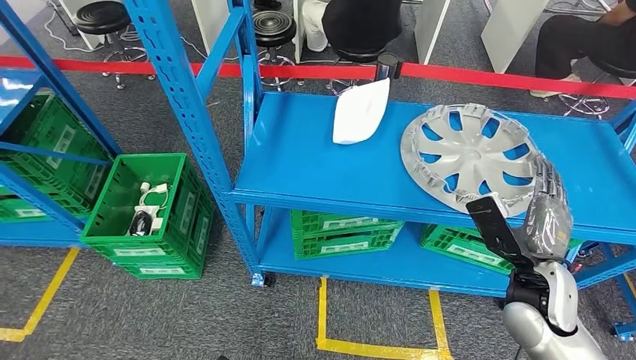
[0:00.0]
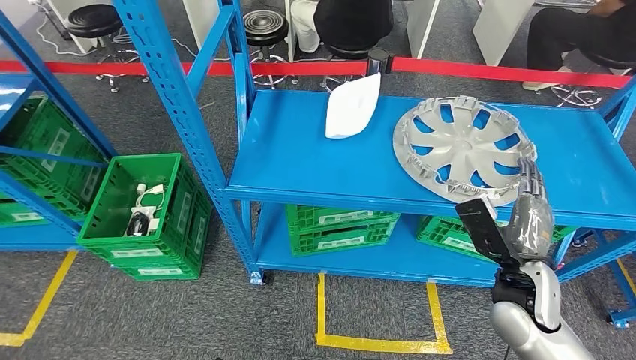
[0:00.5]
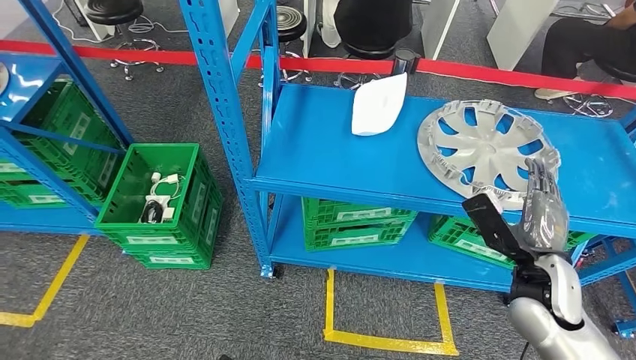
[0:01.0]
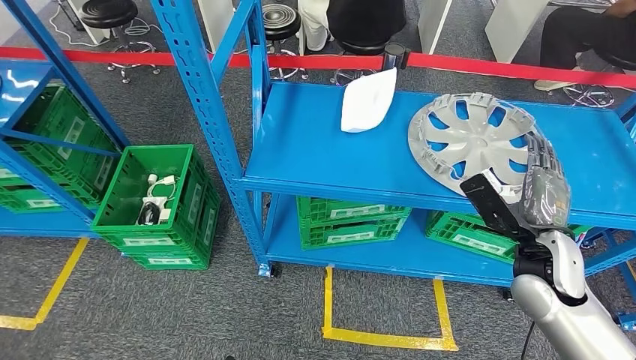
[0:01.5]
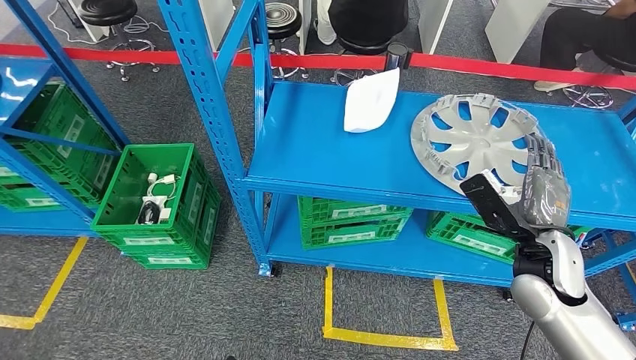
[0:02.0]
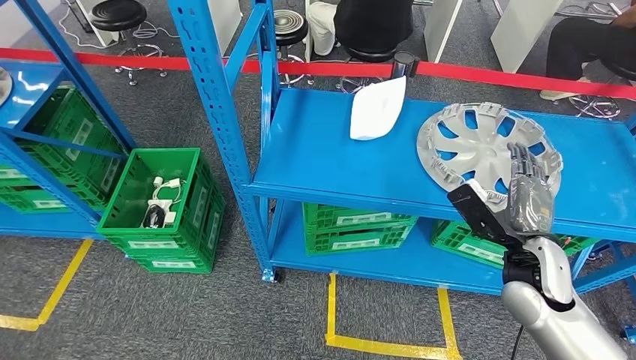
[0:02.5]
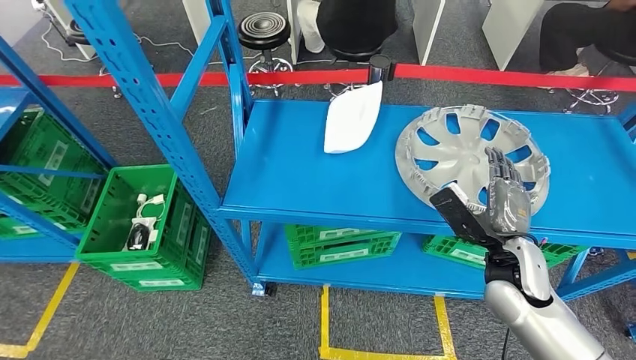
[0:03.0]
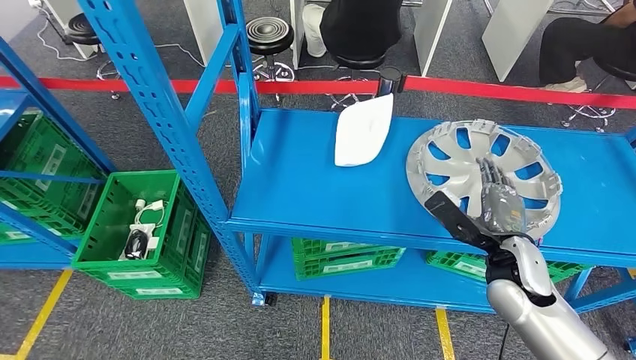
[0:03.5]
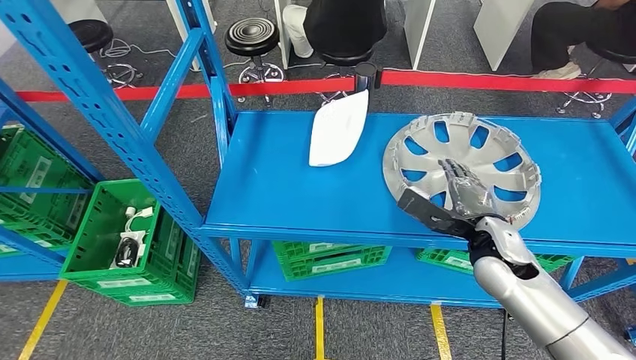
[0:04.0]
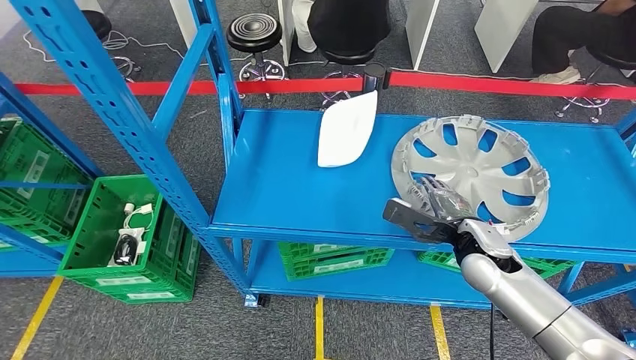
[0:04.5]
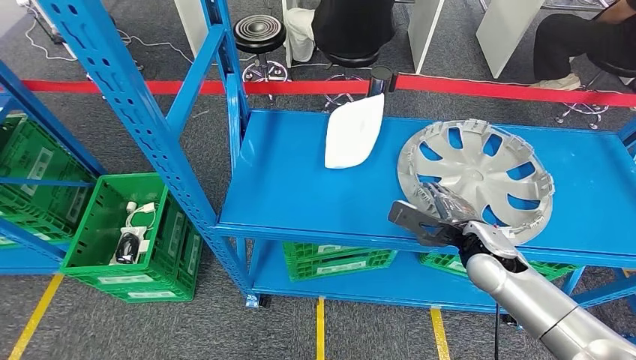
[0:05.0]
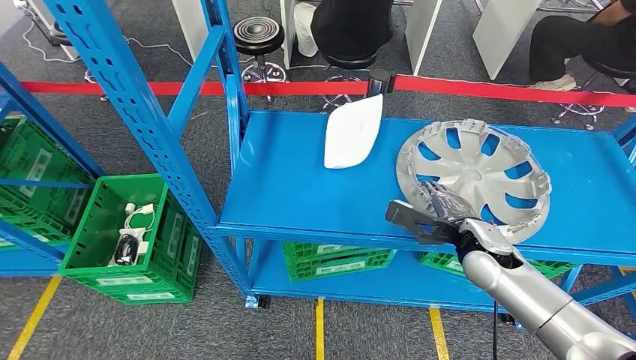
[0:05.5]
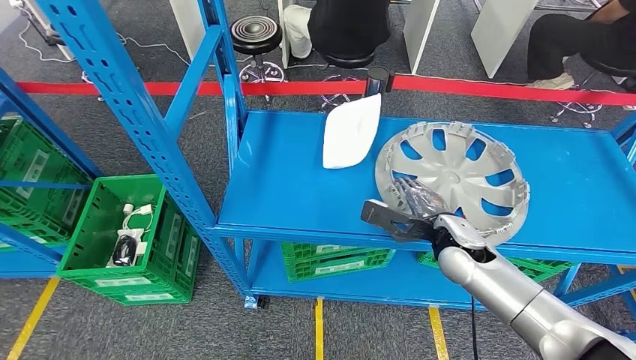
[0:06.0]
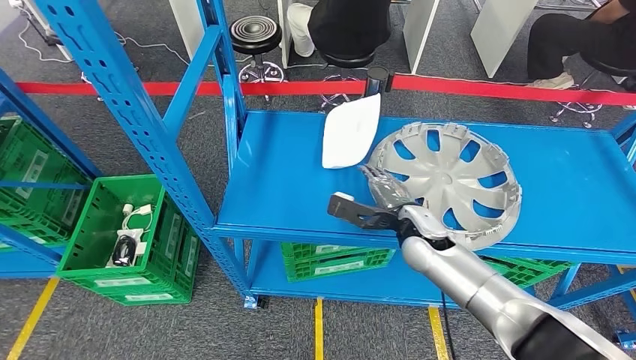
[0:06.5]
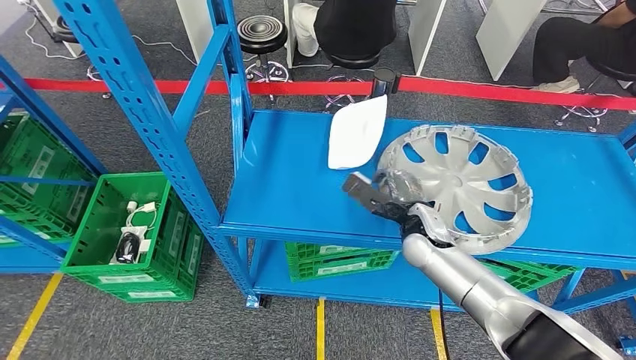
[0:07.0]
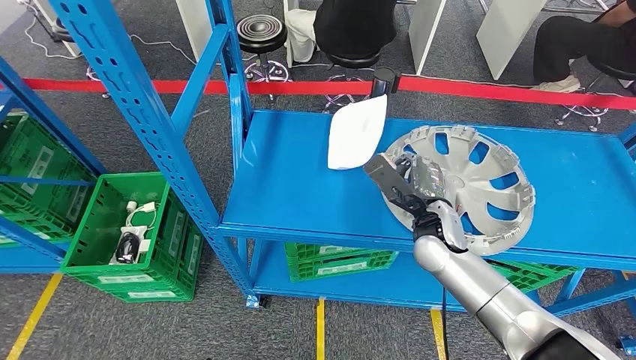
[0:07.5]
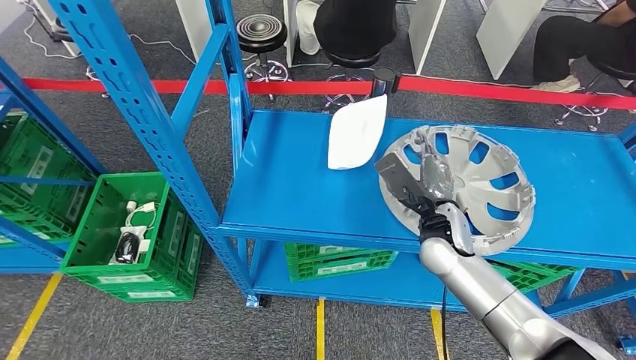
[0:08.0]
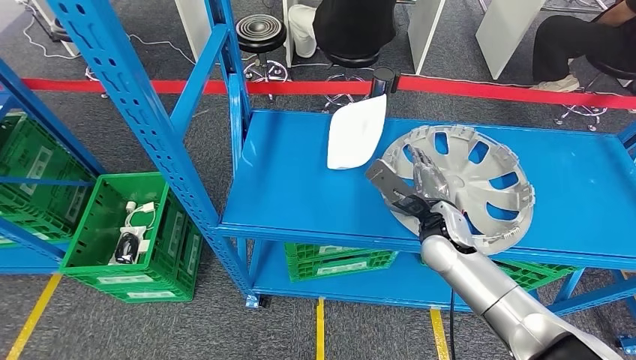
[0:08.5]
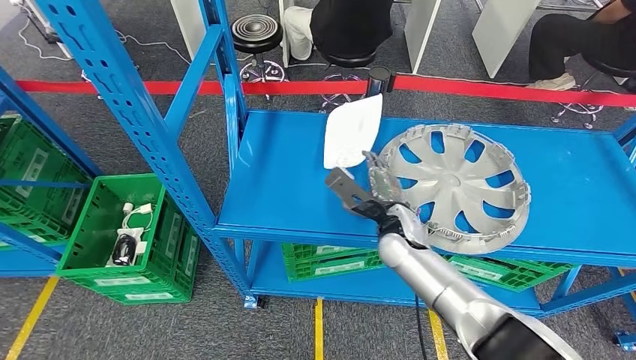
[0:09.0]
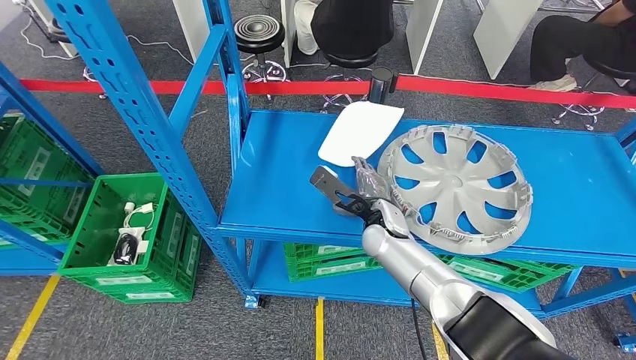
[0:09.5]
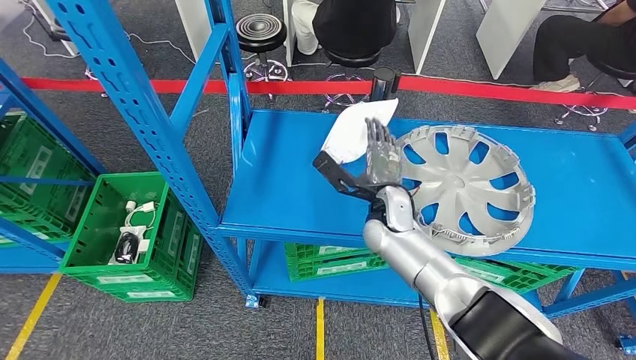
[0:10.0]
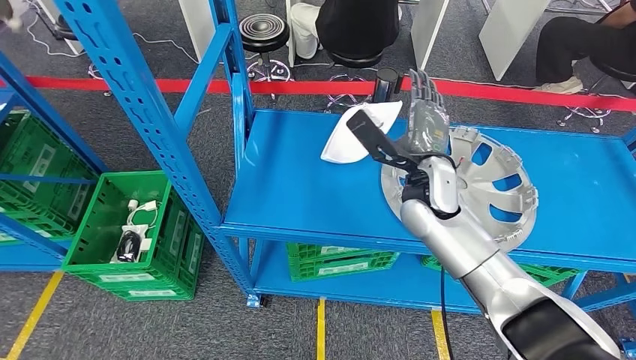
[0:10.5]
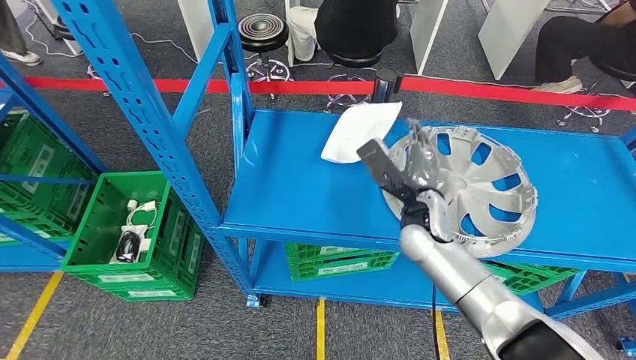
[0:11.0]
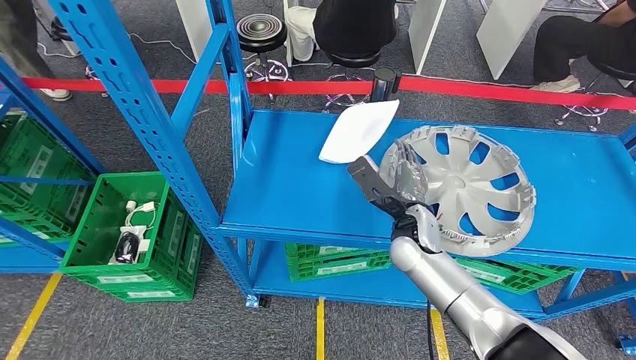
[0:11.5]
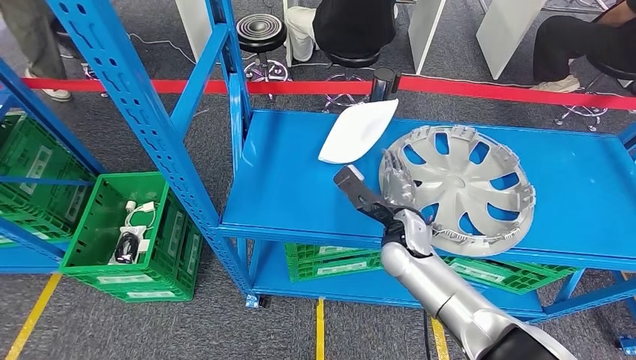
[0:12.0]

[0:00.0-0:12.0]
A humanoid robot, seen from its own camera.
0:08.0 to 0:10.0: The left hand travels to the left by some 5 cm. The right hand heads to the left and forward, covering roughly 10 cm.
0:10.0 to 0:12.0: The right hand travels upward and back again, roughly 10 cm each way.

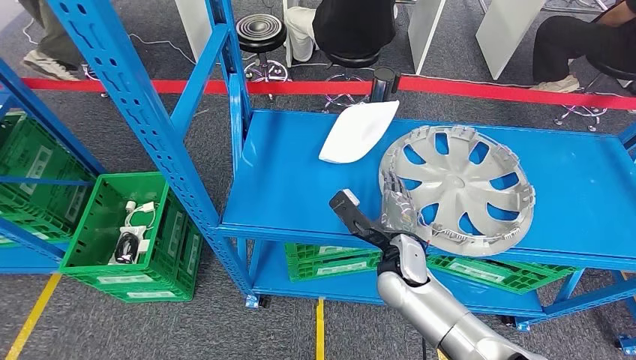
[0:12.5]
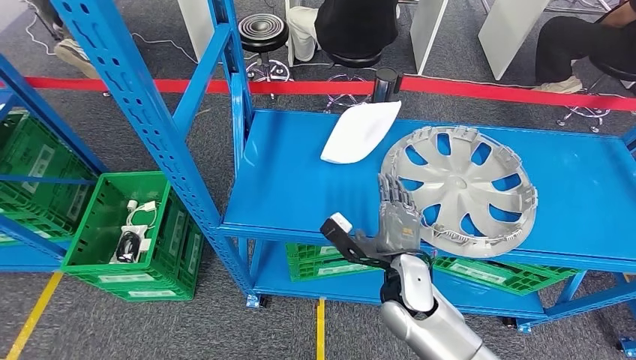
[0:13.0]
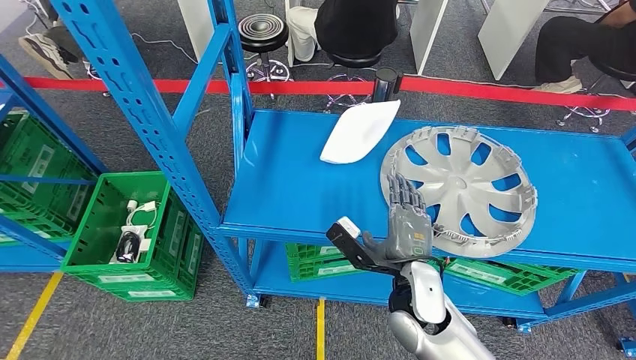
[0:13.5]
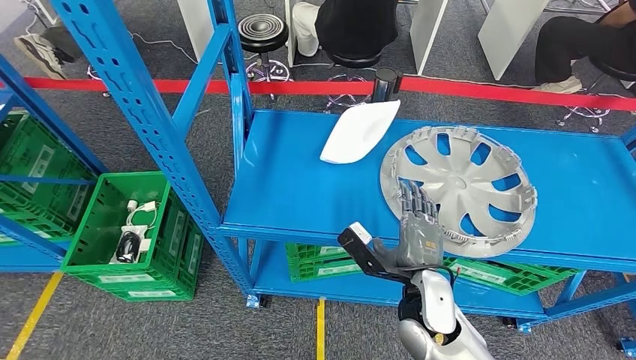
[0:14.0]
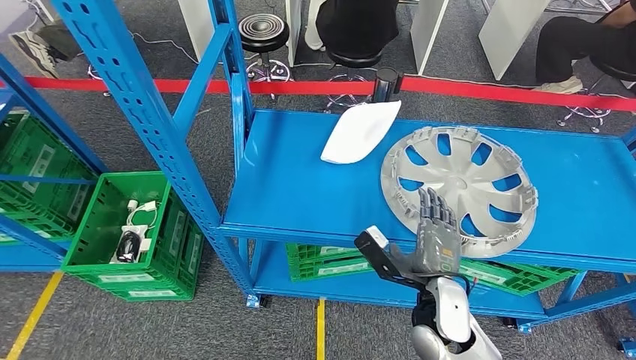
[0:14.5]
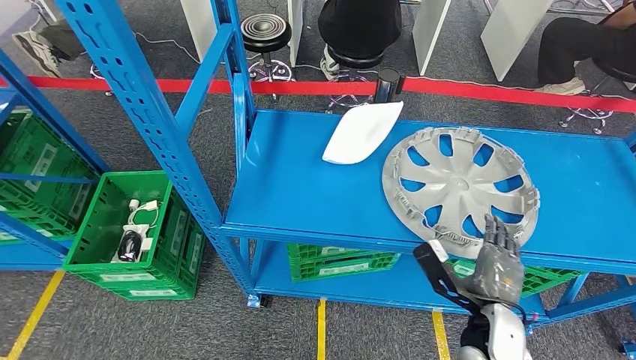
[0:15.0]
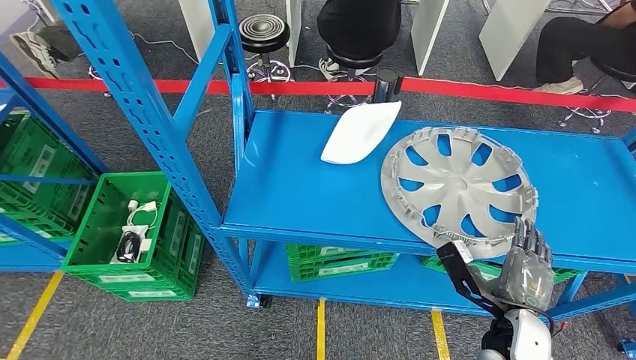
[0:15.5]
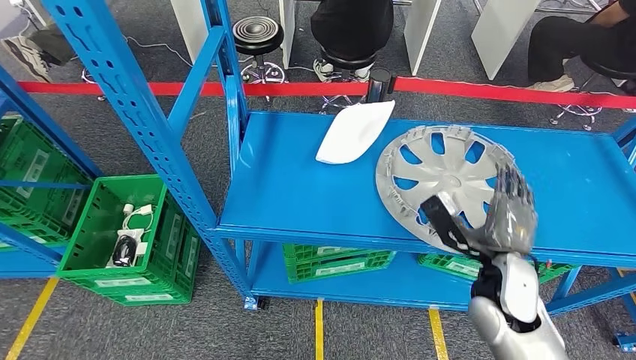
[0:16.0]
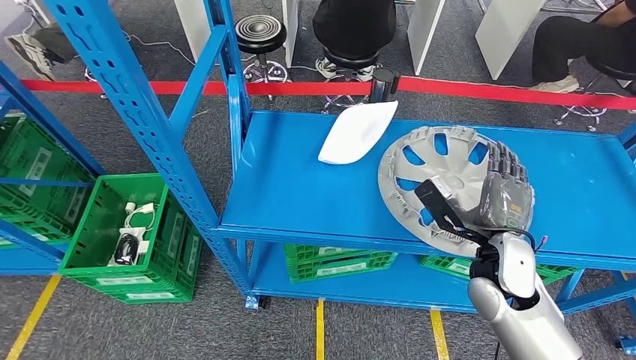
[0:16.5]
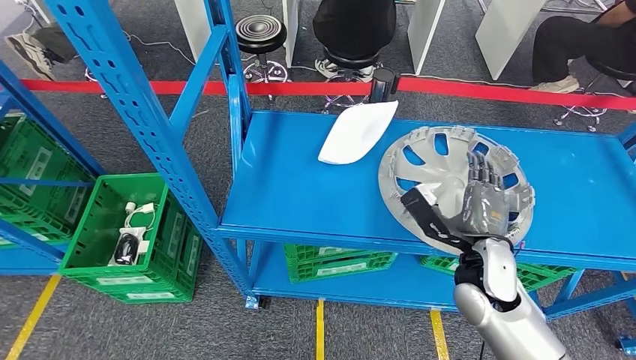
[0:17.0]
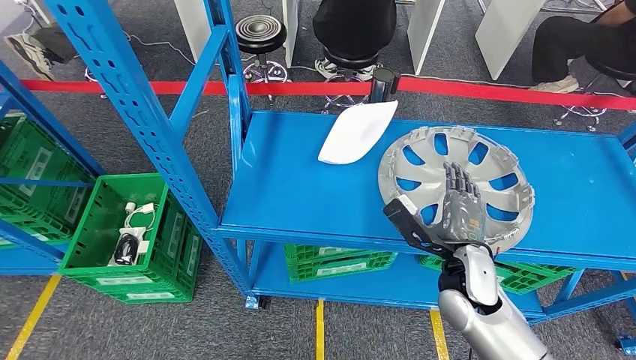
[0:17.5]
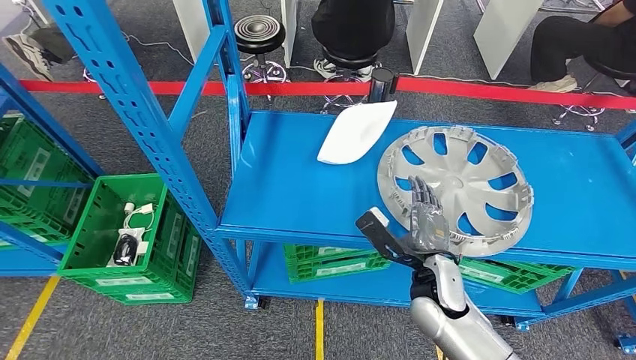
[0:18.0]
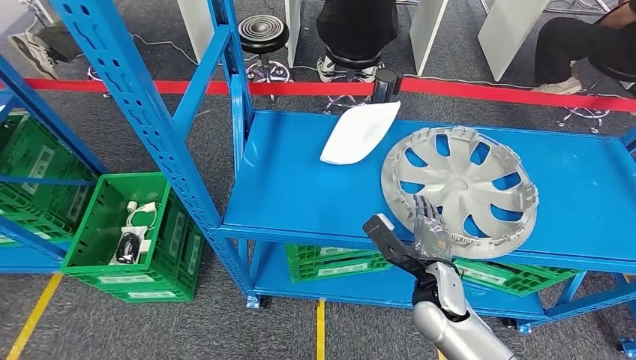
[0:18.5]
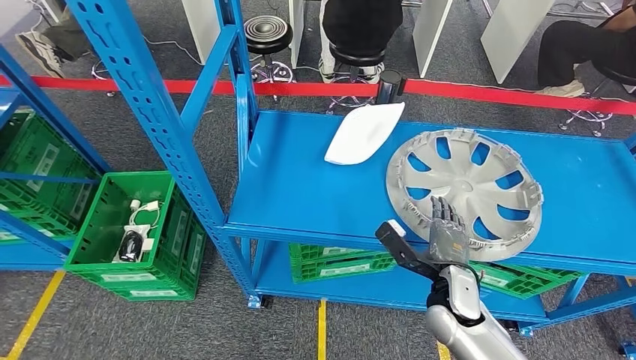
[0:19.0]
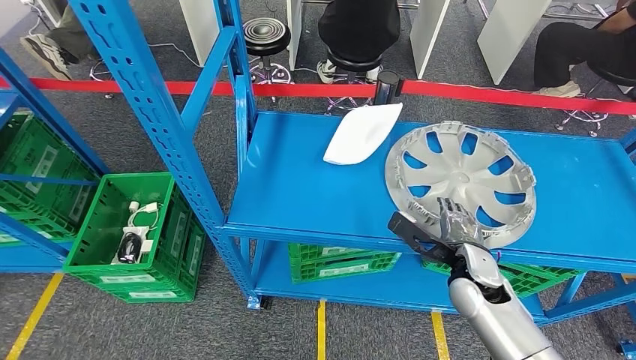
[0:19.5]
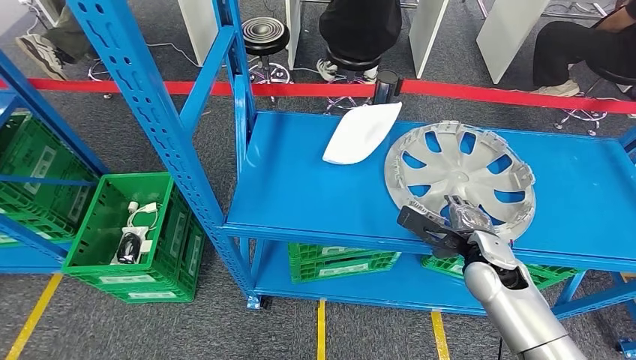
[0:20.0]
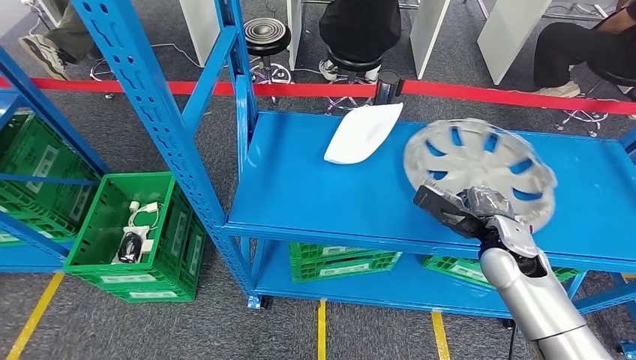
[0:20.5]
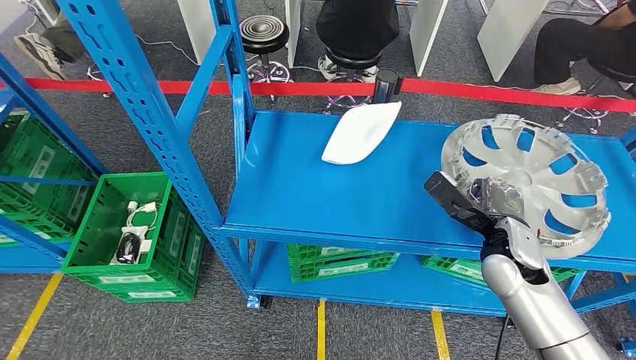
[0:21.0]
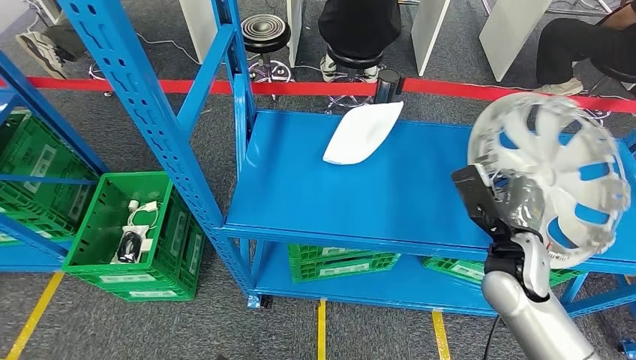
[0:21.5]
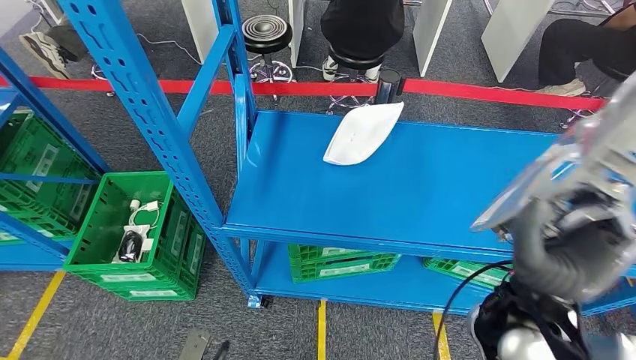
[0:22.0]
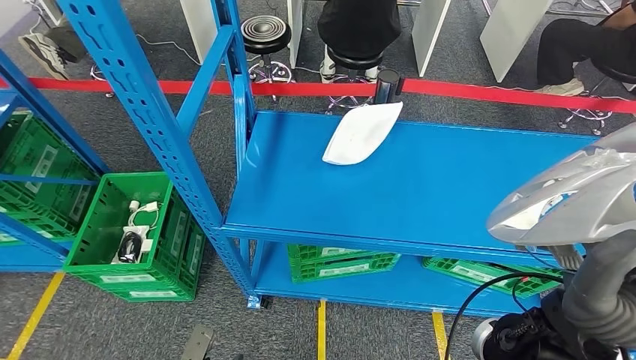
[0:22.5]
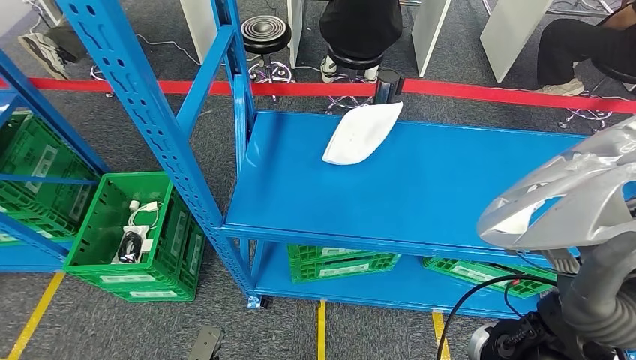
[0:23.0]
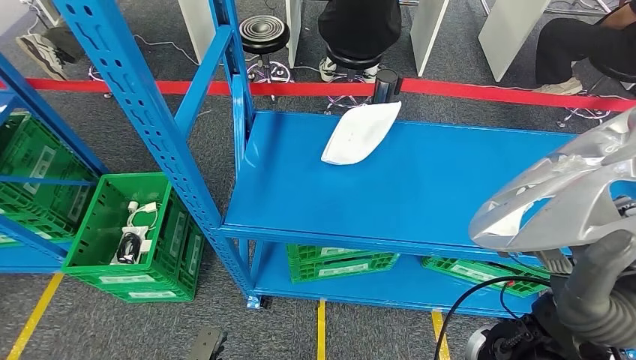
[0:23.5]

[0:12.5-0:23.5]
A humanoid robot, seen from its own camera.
Step, 0:12.5 to 0:22.0: Pick up the small component from the shelf.
0:12.5 to 0:14.5: The right hand is displaced backward by approximately 10 cm.
0:16.0 to 0:18.0: The right hand heads to the left and downward, covering about 10 cm.
0:21.5 to 0:23.5: The right hand travels to the left, backward and upward by about 20 cm.
